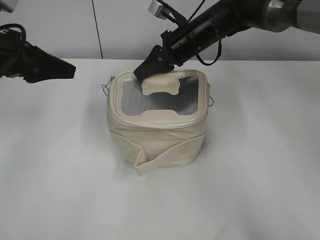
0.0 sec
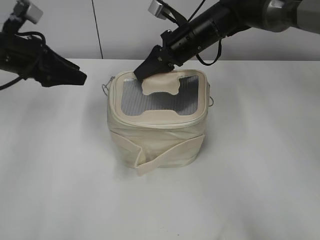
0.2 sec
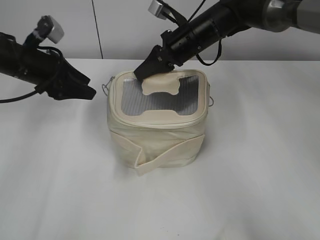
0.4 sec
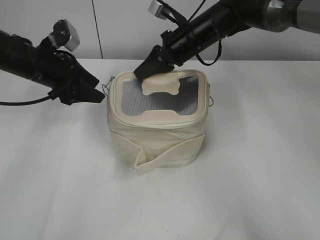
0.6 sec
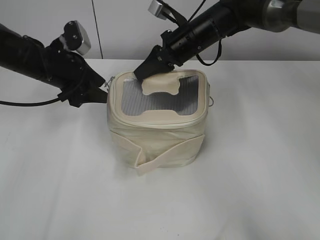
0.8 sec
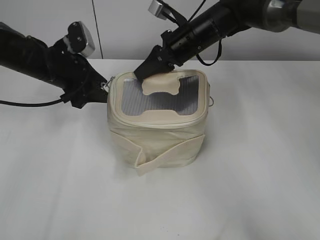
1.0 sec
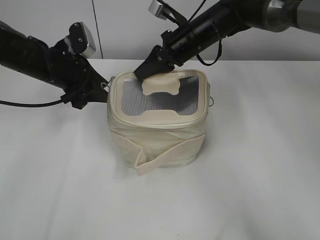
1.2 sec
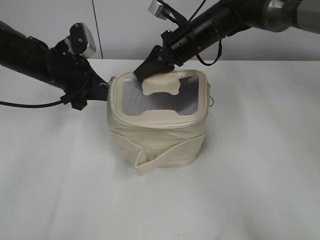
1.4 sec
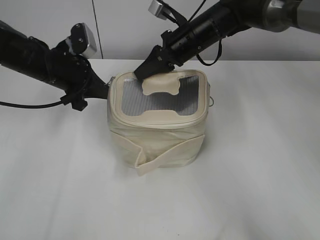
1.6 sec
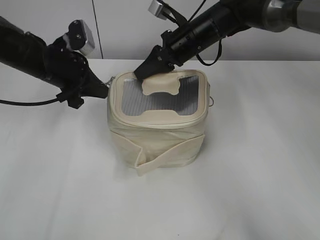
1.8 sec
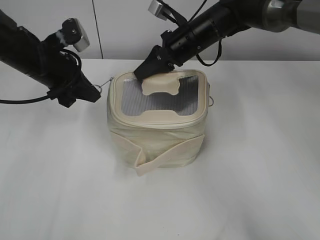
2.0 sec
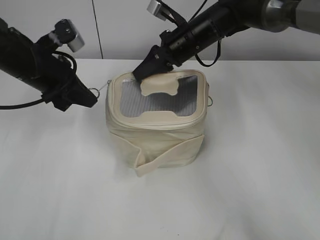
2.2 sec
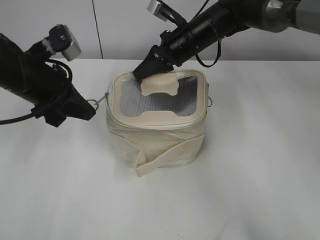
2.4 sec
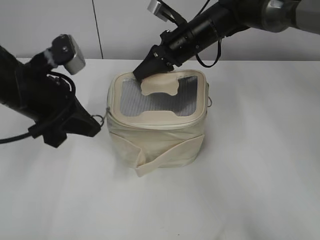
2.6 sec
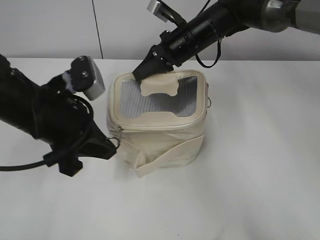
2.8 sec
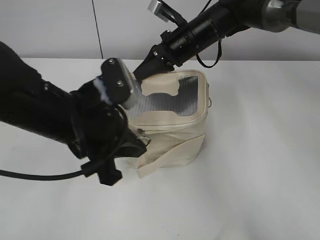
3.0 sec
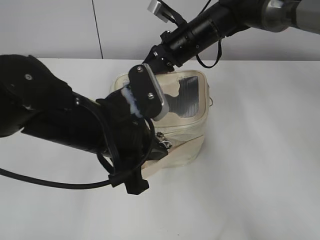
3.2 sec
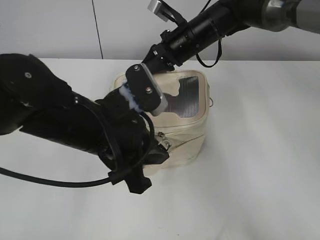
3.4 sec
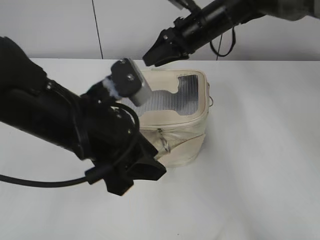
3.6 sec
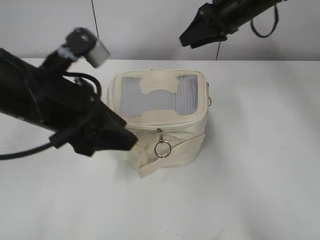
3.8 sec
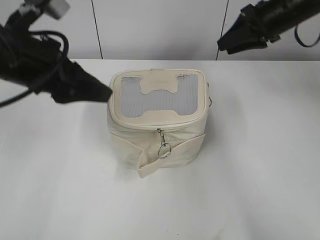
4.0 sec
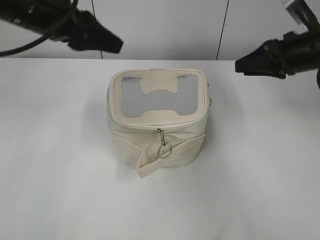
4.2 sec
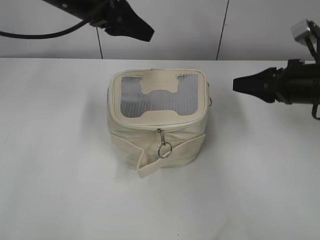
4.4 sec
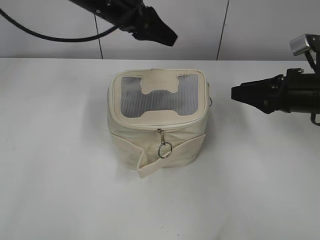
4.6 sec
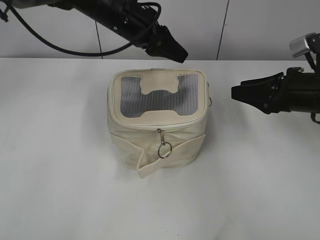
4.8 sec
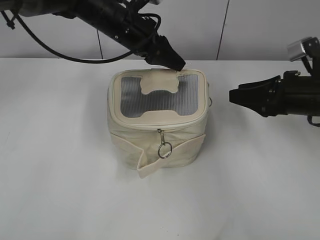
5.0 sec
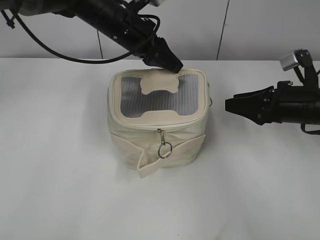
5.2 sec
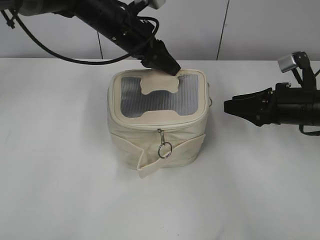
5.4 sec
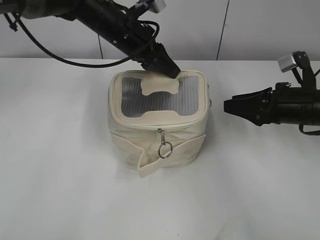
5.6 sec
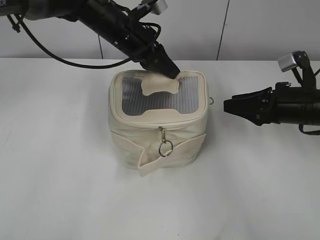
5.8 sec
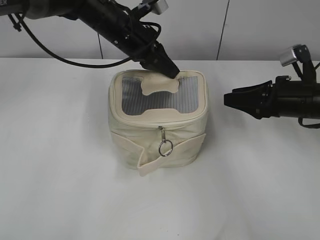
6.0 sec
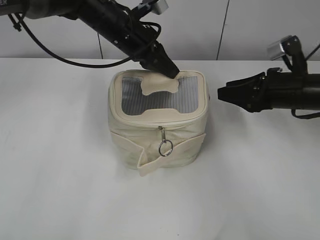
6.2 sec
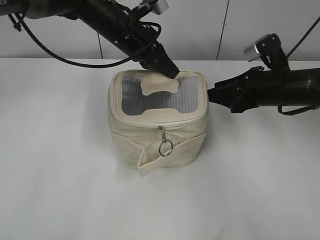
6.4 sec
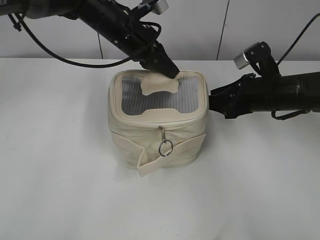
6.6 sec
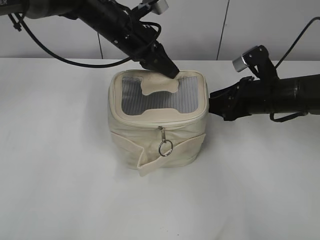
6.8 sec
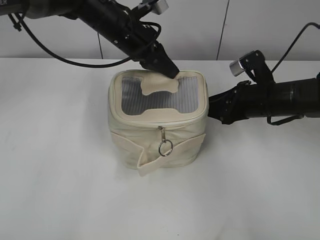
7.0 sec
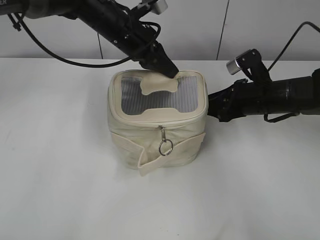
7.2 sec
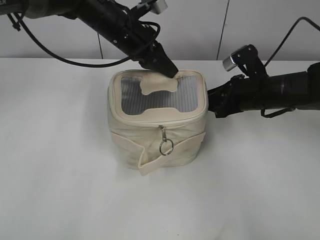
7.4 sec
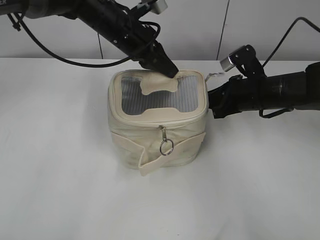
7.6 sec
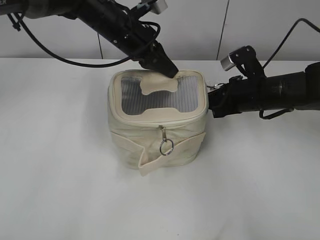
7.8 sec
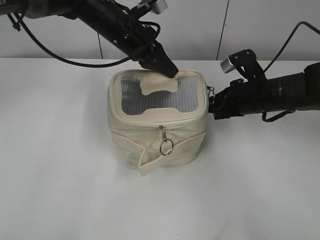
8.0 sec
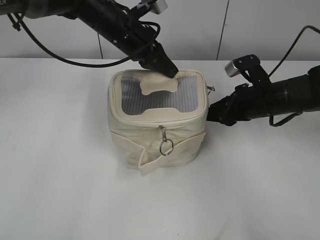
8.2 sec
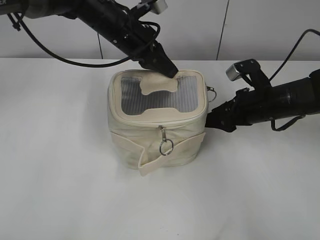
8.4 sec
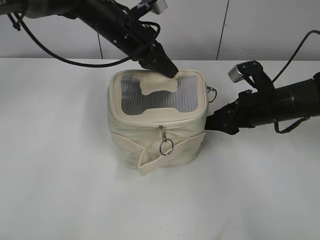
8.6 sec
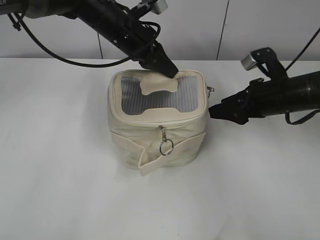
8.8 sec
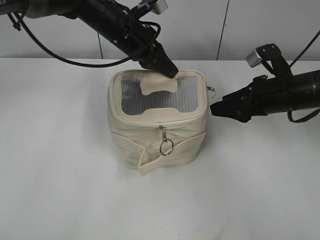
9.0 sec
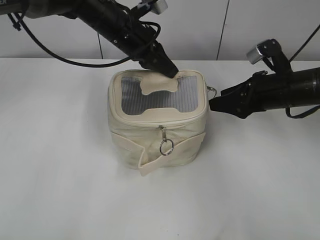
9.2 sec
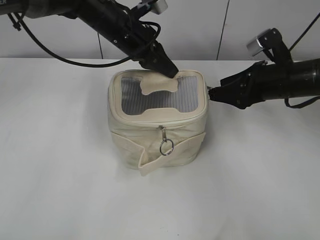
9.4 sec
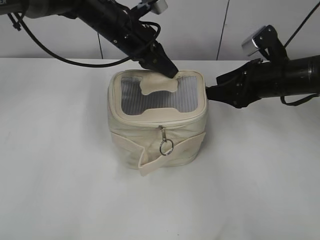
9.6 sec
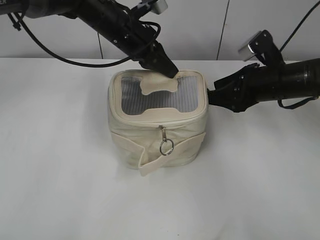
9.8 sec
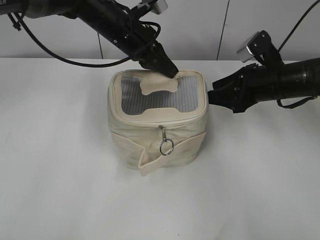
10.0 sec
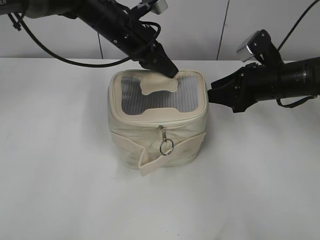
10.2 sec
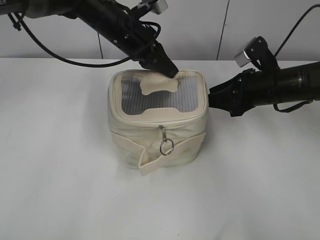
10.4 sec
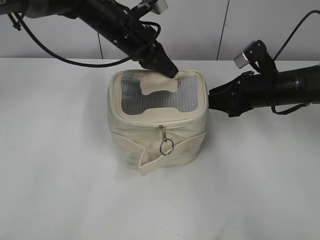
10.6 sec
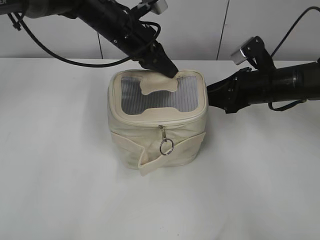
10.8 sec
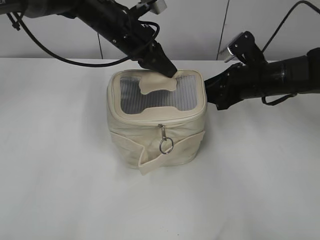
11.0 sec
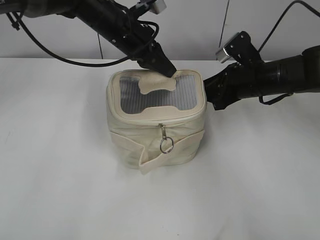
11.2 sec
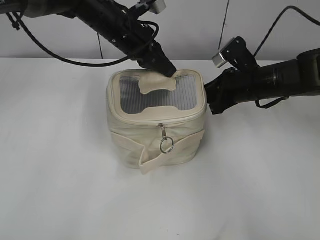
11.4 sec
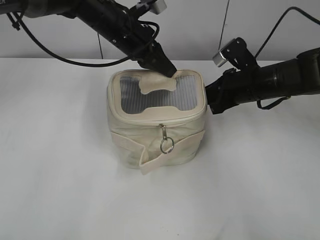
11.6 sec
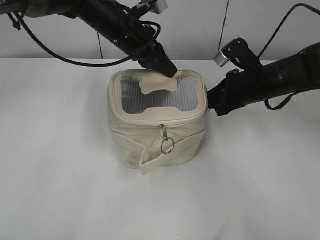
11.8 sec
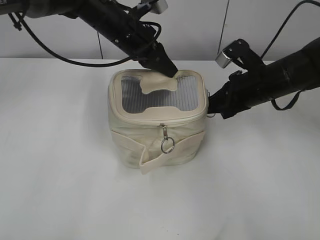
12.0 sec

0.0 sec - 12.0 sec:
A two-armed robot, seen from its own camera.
Step, 0.0 sec - 3.4 sec: Zip up the bag with your left hand.
0.0 sec - 1.6 sec: The left gripper goes roughly 15 cm forward, downward and to the right, and closes its fingers.
1.6 sec - 3.0 sec: The left gripper shifts roughly 15 cm backward and to the right.
3.0 sec - 4.4 sec: The left gripper heads forward and upward, covering approximately 20 cm, and opens; the right gripper is displaced to the right and backward by roughly 25 cm, and opens up.
4.4 sec - 6.0 sec: The left gripper heads downward, to the right and forward, covering some 10 cm, and closes its fingers.
6.0 sec - 7.6 sec: The right gripper travels to the left by approximately 5 cm, and closes.
7.6 sec - 9.0 sec: The right gripper opens its fingers.
9.0 sec - 10.4 sec: The grippers move only a little.
10.4 sec - 12.0 sec: The right gripper closes up.

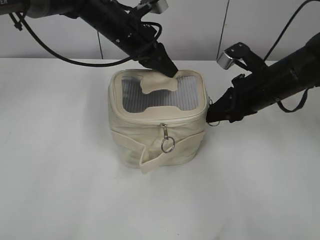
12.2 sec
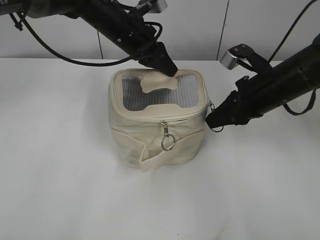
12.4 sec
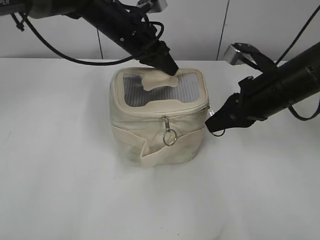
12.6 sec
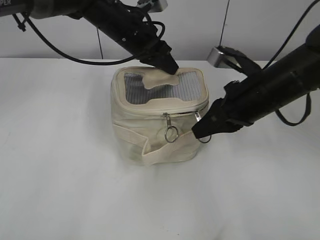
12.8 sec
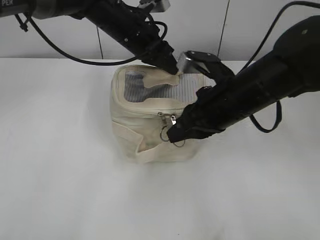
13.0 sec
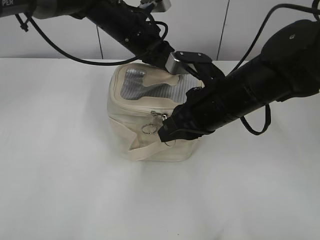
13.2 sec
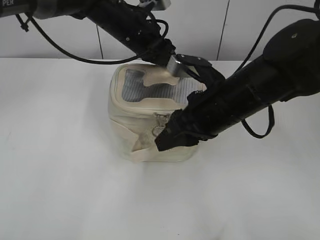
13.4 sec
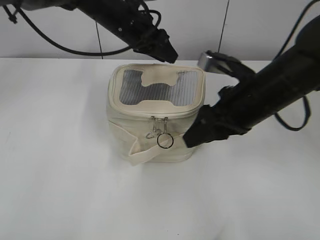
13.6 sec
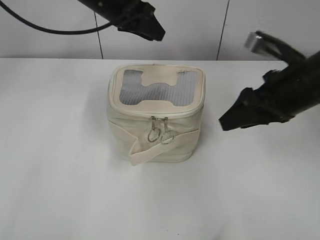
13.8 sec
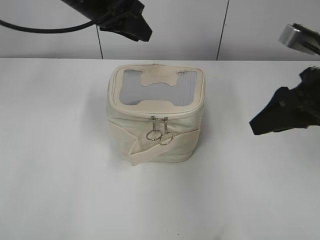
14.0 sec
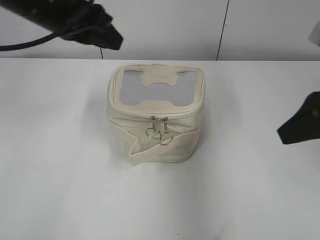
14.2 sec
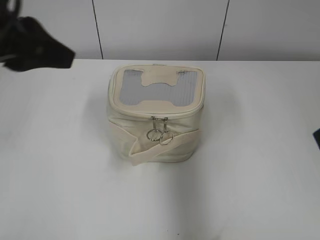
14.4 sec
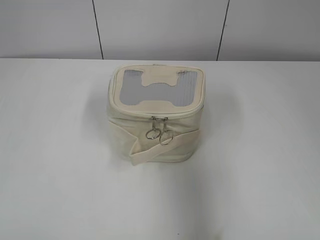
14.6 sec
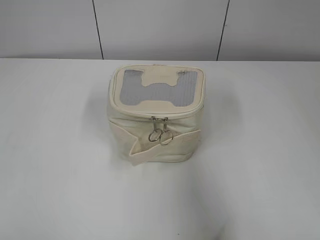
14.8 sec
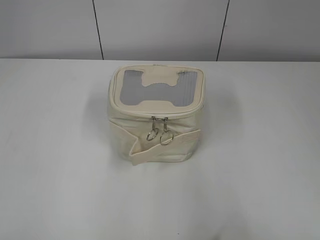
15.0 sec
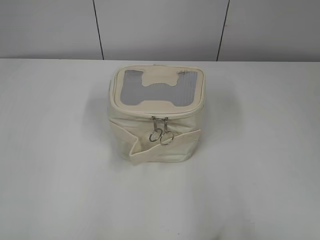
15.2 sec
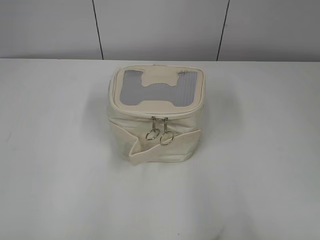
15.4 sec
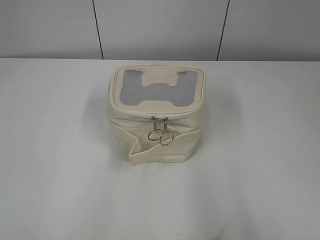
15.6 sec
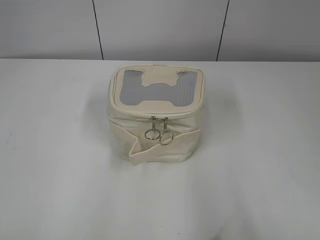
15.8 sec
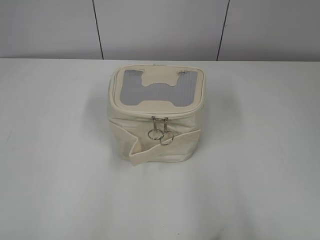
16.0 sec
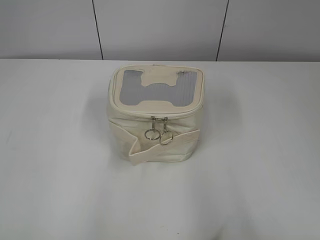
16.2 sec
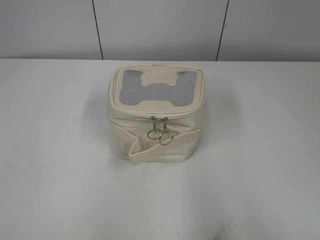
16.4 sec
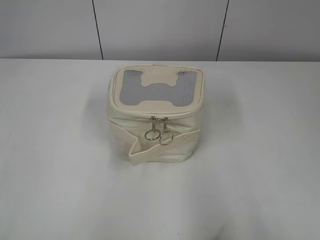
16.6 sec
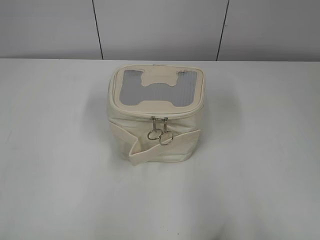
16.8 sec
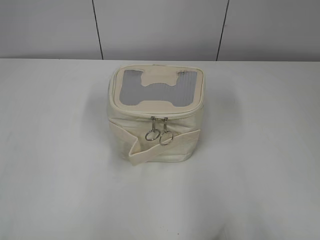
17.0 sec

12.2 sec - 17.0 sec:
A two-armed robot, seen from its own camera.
12.2 sec - 13.8 sec: The left gripper goes about 5 cm upward, and opens. Meanwhile the right gripper moves backward and upward, some 10 cm, goes to the left and returns, some 10 cm each way, and opens its fingers.
13.8 sec - 15.4 sec: The left gripper heads backward and to the left, covering roughly 50 cm. Meanwhile the right gripper is displaced backward by about 30 cm.
